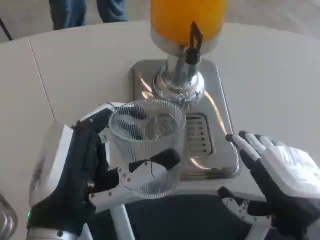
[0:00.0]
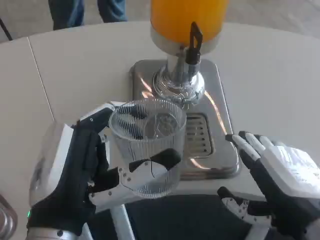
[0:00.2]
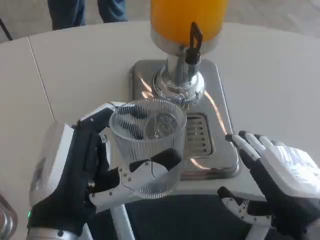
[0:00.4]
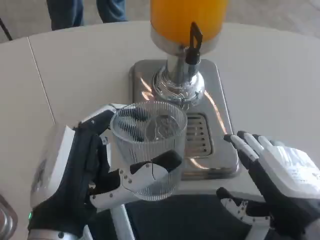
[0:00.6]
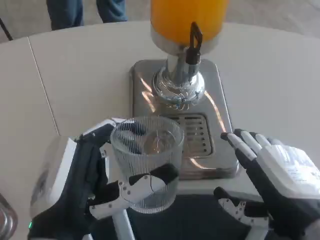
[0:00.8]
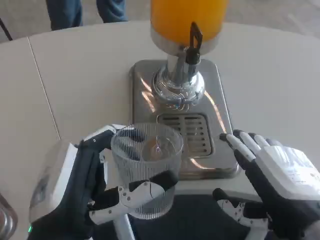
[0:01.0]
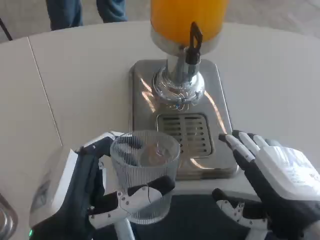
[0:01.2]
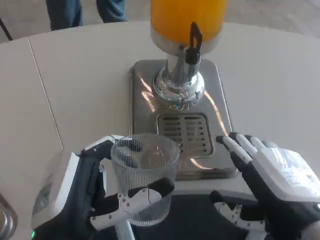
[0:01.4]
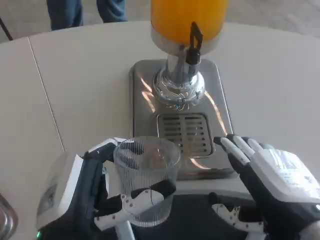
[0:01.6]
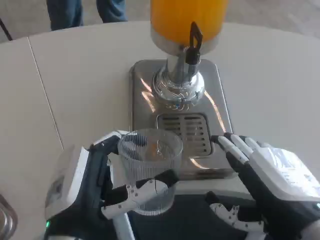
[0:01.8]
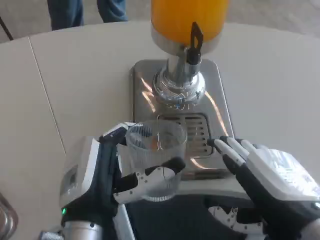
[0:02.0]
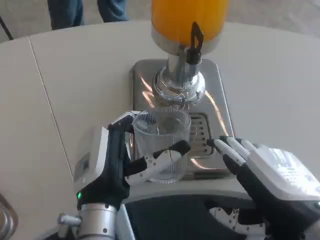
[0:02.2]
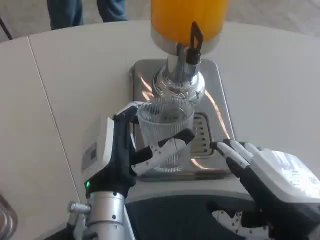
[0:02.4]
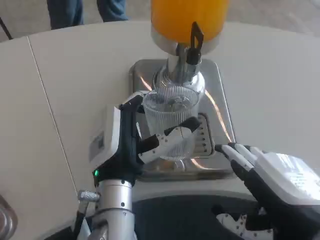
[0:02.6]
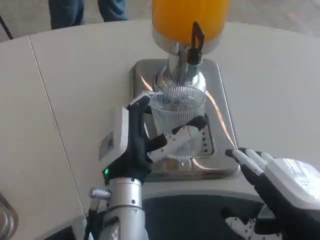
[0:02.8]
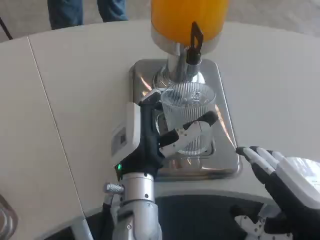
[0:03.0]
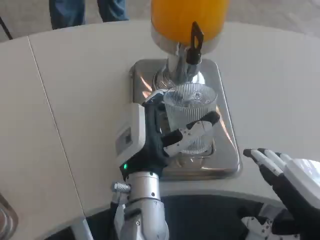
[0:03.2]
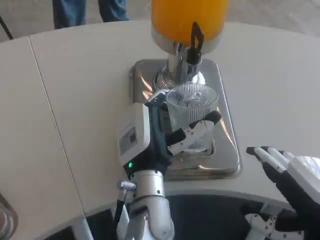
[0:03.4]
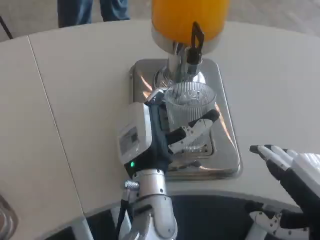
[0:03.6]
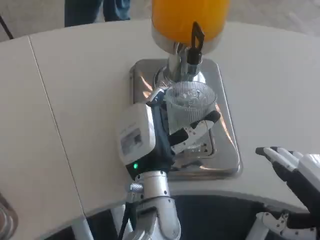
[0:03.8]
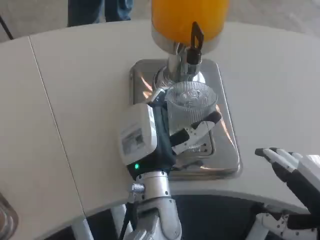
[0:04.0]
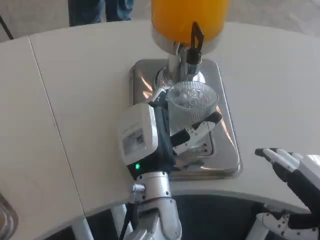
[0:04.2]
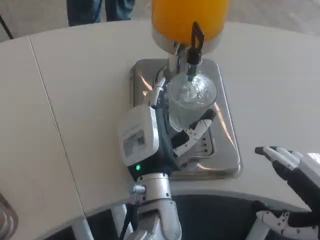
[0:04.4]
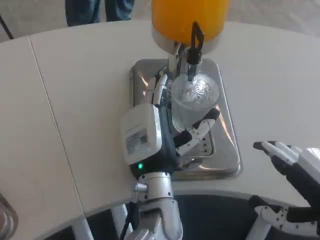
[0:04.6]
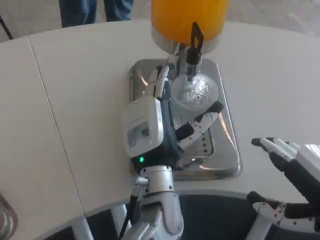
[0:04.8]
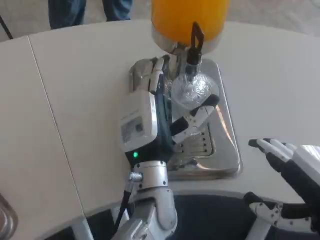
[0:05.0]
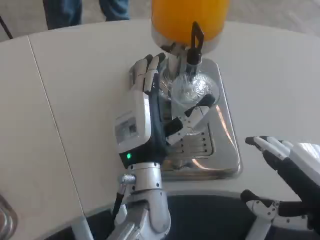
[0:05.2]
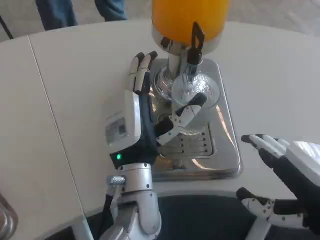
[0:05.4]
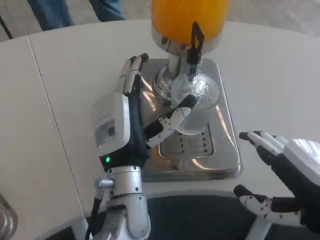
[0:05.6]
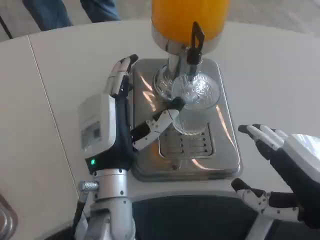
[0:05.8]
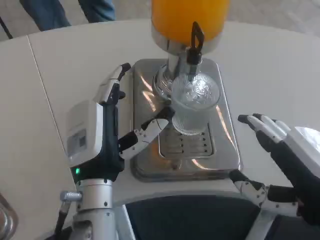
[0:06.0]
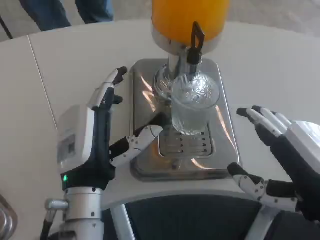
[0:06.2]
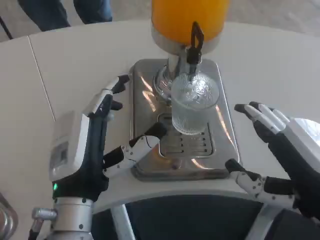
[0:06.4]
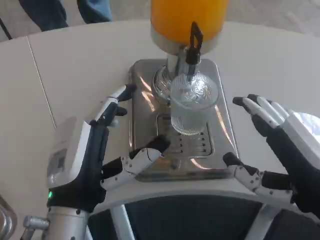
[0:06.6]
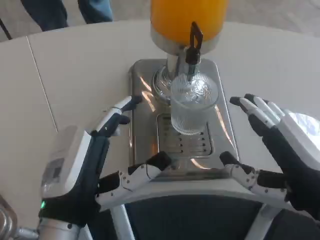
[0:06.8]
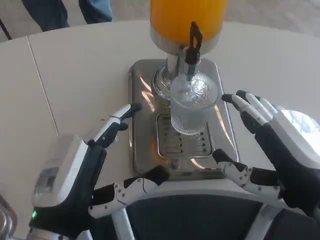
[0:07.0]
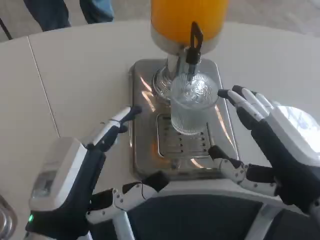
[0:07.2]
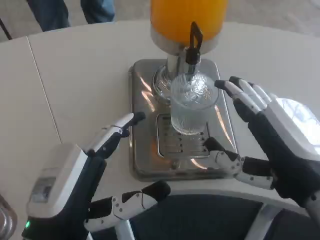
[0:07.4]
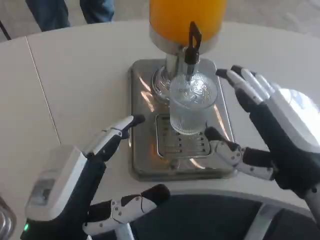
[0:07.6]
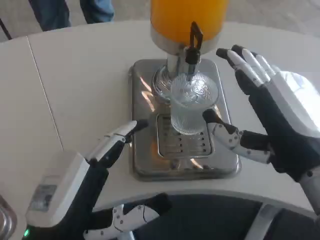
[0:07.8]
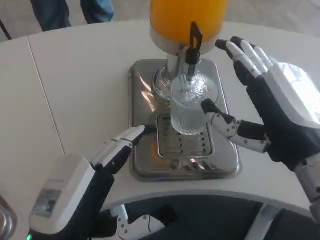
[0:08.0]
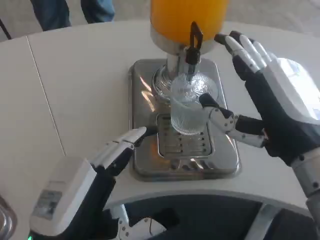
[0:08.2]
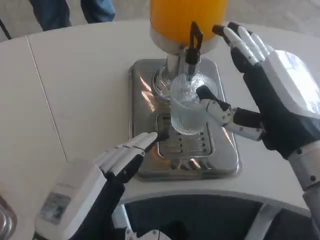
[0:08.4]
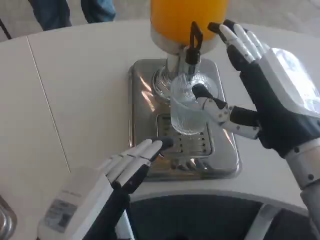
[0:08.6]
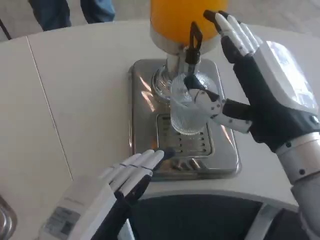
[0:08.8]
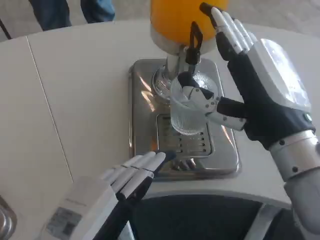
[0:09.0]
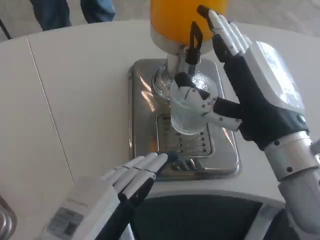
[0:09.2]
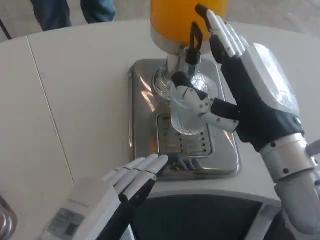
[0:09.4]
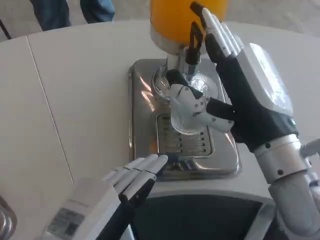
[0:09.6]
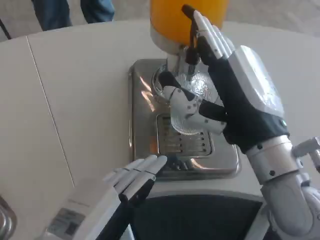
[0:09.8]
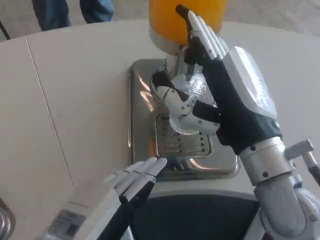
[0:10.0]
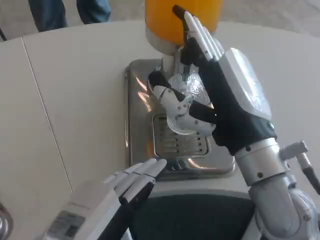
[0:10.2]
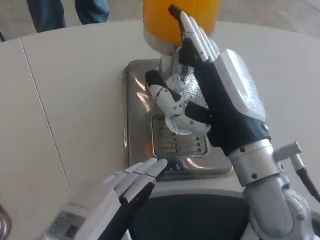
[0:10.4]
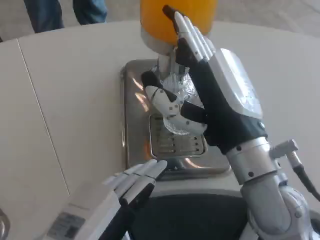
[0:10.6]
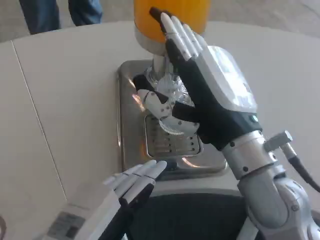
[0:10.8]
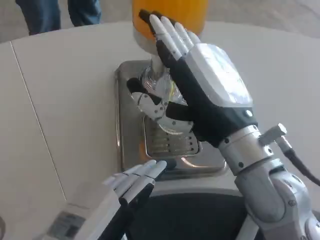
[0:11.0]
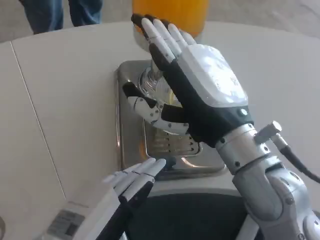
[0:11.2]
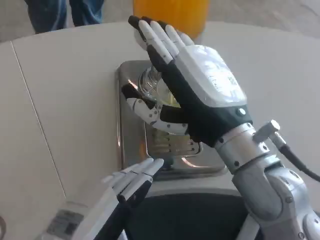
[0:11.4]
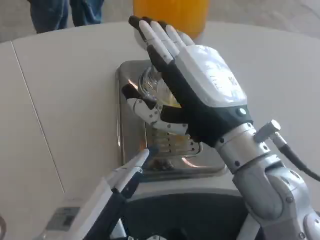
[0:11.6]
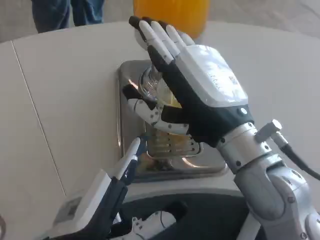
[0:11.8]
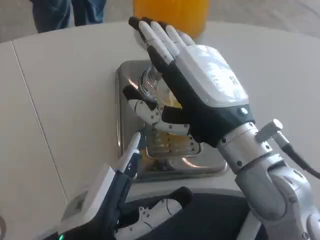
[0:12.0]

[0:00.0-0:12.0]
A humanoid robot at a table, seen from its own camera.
Task of the whole recording: Grasp the cup under the faucet to collect the drink, then remove the cup.
0:01.6 to 0:03.0: The left hand travels forward and to the right by approximately 15 cm.
0:03.0 to 0:04.4: The left hand ends up some 5 cm from where it was.
0:04.4 to 0:06.0: The left hand is displaced to the left by approximately 10 cm.
0:06.0 to 0:07.6: The left hand moves backward and to the left, some 15 cm.
0:07.6 to 0:09.0: The right hand changes place by approximately 5 cm.

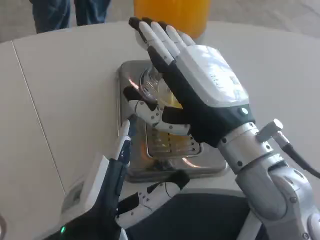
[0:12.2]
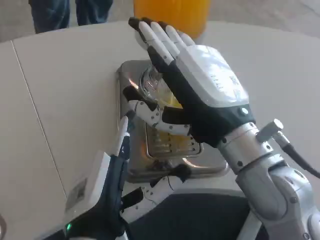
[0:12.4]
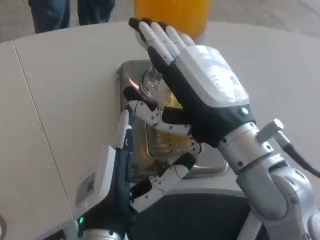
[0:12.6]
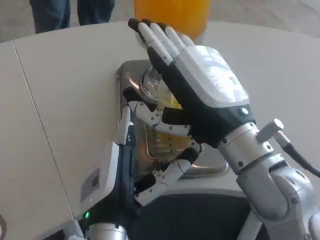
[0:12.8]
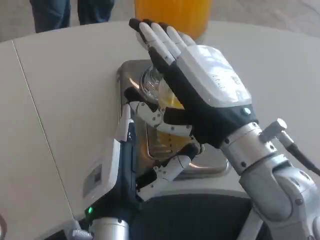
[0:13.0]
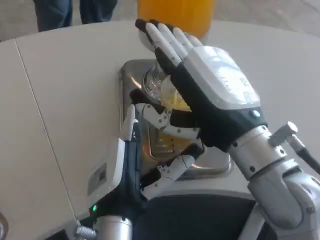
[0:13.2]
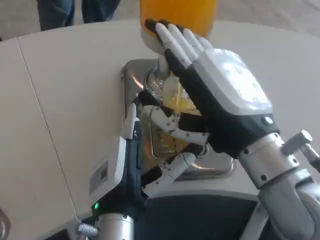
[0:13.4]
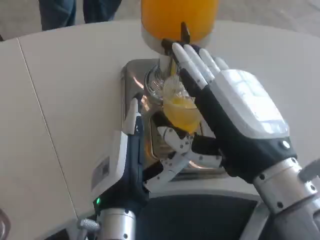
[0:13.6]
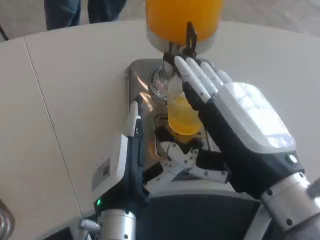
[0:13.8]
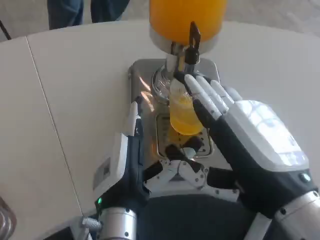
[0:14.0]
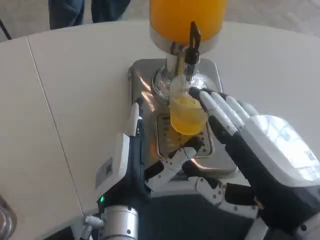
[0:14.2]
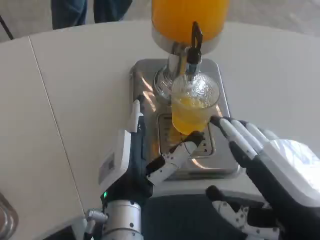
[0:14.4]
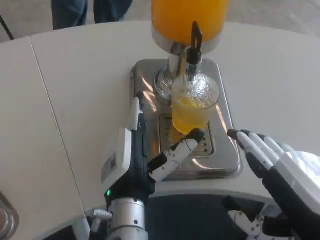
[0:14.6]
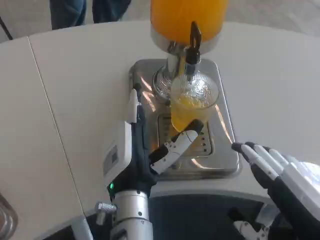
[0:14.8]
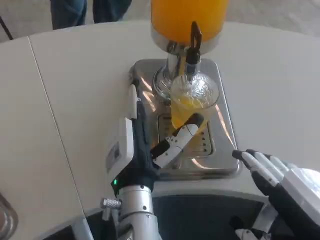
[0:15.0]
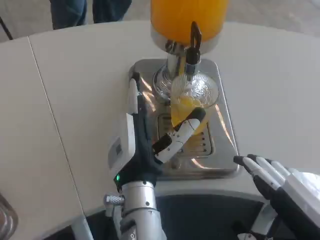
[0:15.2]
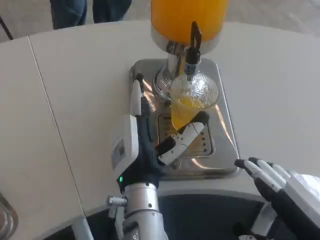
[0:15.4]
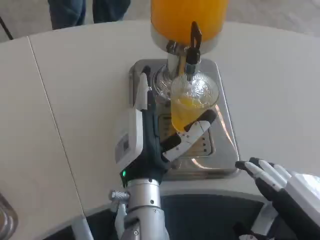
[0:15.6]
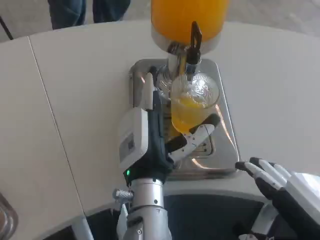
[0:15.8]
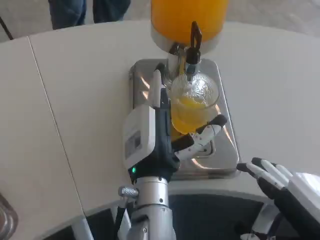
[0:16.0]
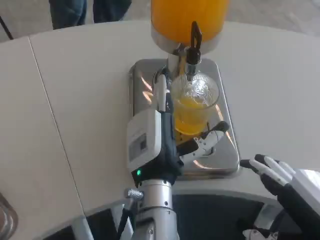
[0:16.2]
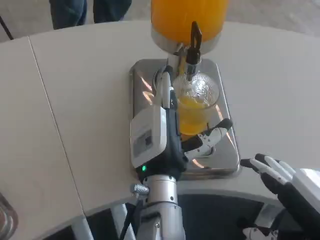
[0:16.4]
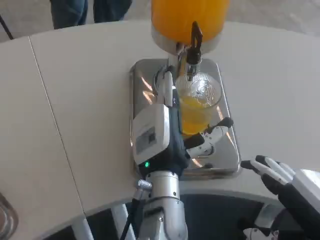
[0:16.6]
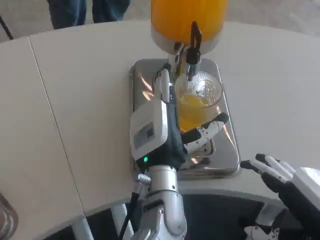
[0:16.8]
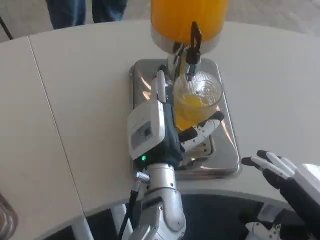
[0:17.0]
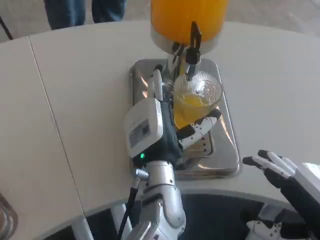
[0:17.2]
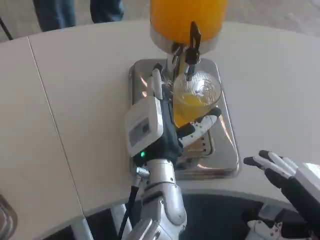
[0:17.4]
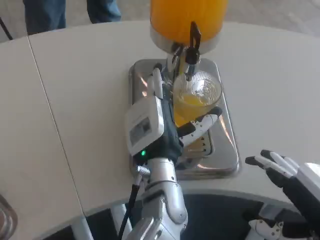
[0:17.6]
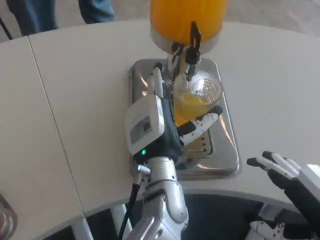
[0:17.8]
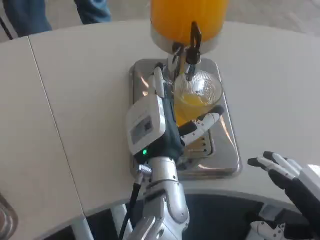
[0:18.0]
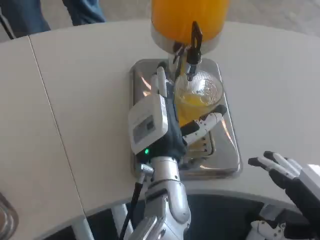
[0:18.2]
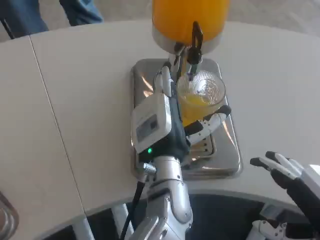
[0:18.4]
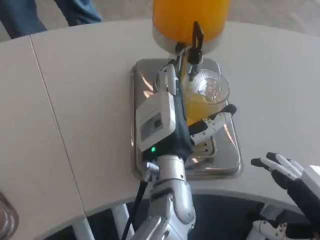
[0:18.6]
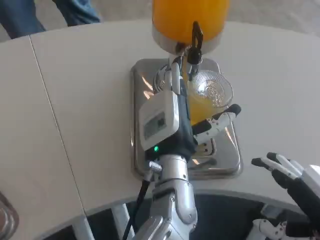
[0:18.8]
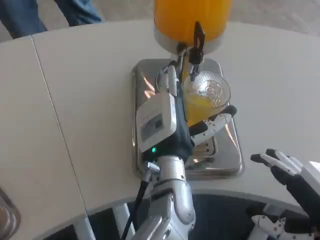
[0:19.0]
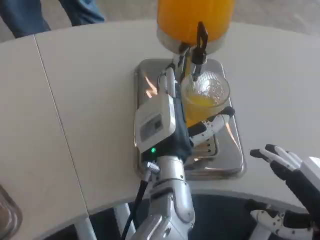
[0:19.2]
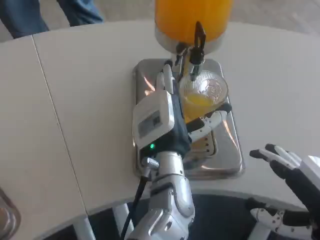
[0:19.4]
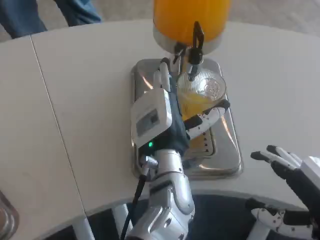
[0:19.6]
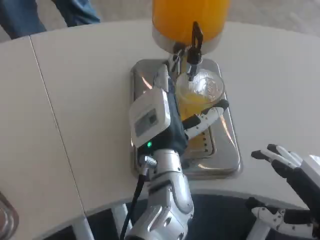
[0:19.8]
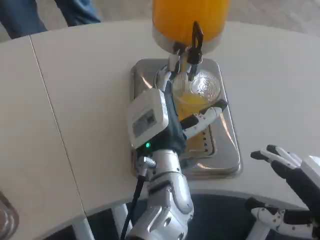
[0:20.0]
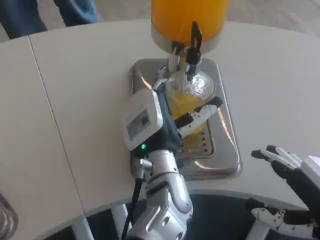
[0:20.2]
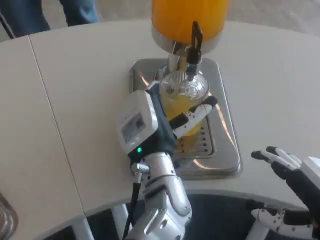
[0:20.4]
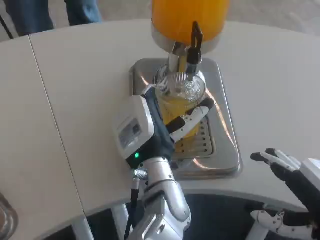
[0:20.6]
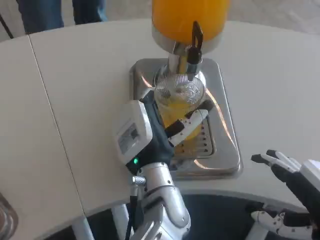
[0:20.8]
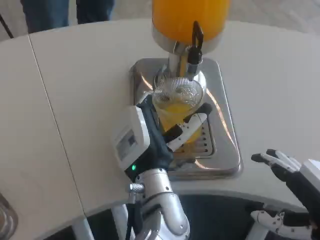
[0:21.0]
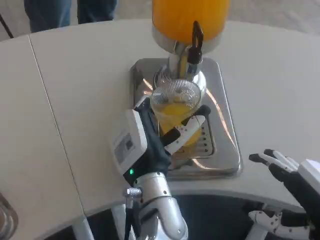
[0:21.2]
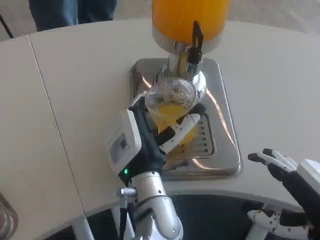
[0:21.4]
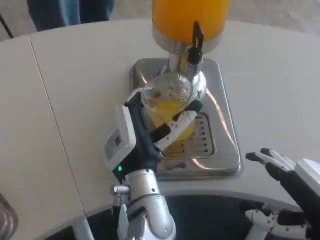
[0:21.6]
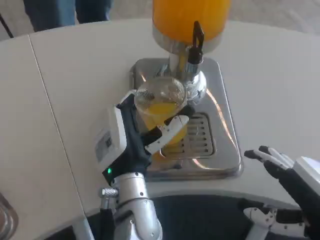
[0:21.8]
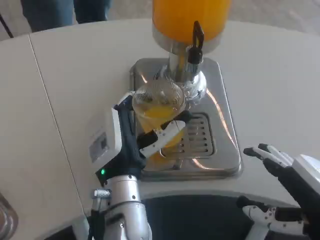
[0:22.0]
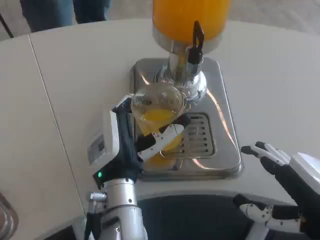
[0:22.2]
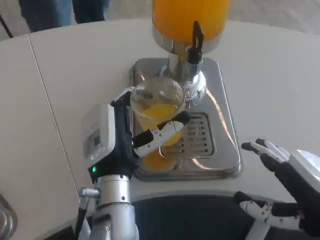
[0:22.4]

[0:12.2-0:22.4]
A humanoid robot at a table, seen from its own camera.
Task of the whole recording: Grasp the cup under the faucet to collect the drink, then remove the cup.
0:12.2 to 0:13.6: The right hand shifts approximately 5 cm backward; the left hand moves approximately 5 cm.
0:13.6 to 0:15.2: The left hand travels forward by some 5 cm; the right hand shifts roughly 10 cm backward and to the right.
0:15.2 to 0:18.0: The hands move only a little.
0:18.0 to 0:19.4: Both hands stay put.
0:19.4 to 0:21.0: The hands make only small movements.
0:21.0 to 0:22.4: The left hand is displaced to the left by some 5 cm.
